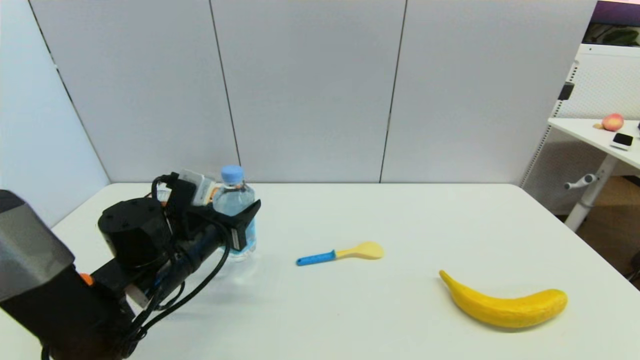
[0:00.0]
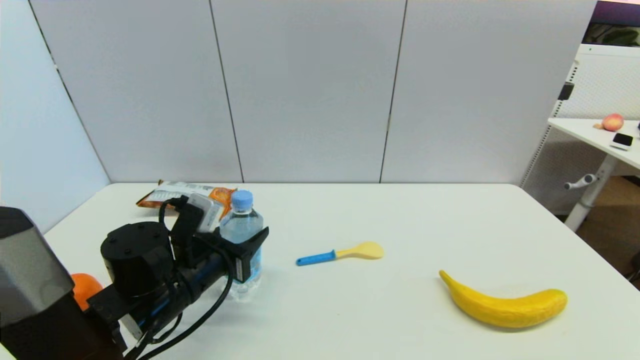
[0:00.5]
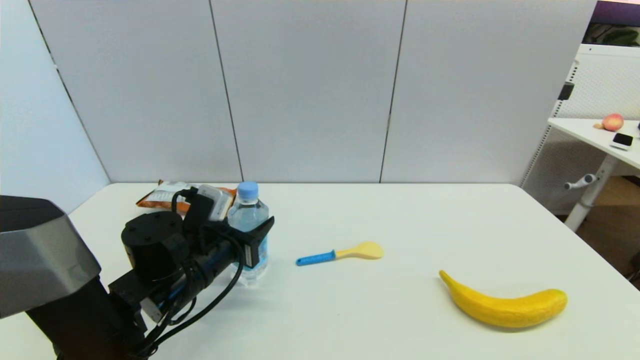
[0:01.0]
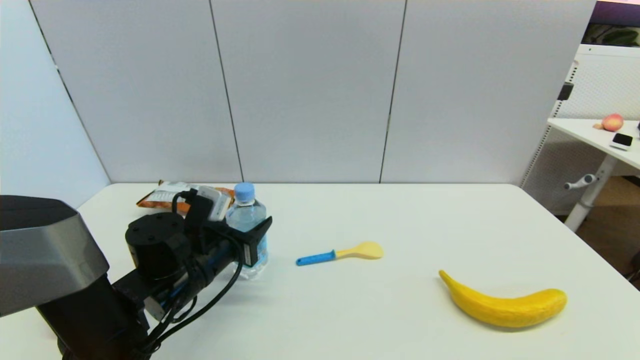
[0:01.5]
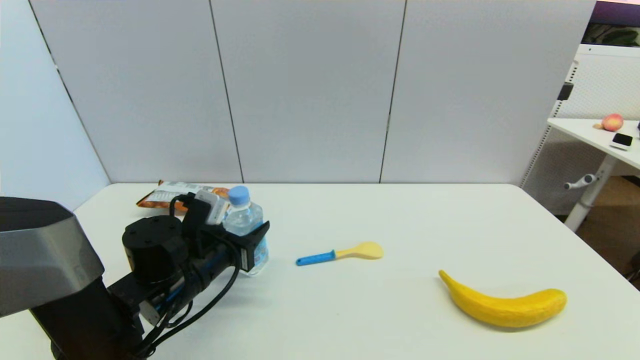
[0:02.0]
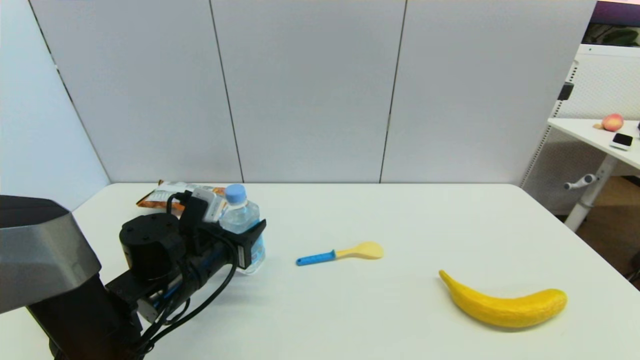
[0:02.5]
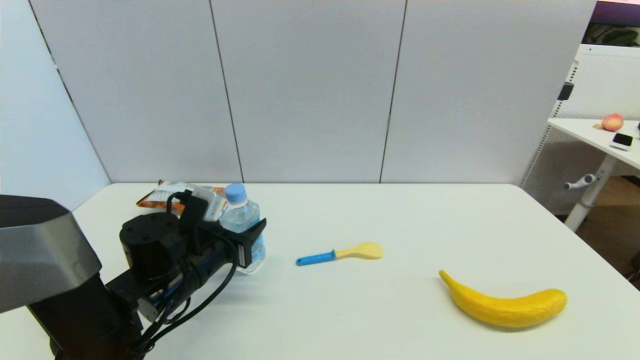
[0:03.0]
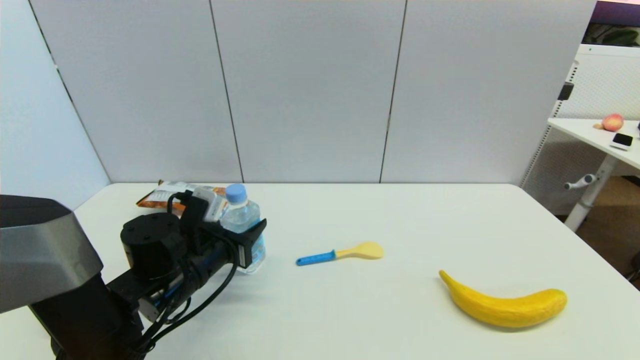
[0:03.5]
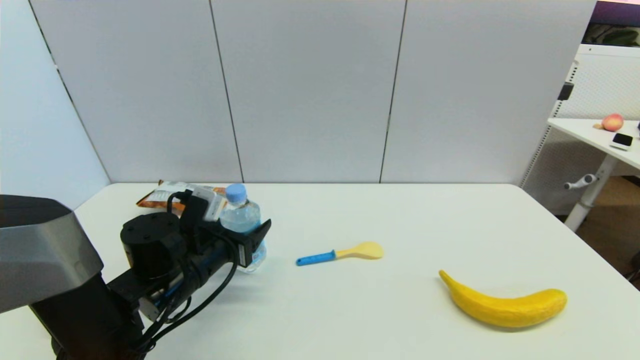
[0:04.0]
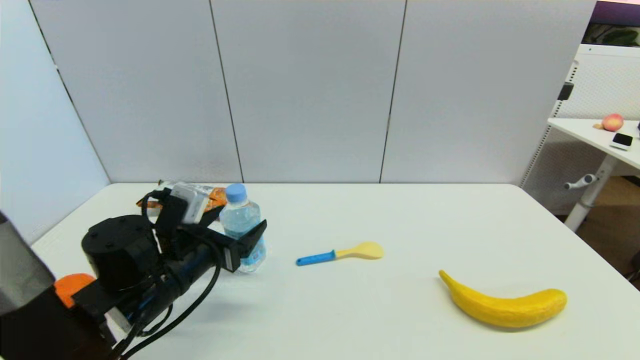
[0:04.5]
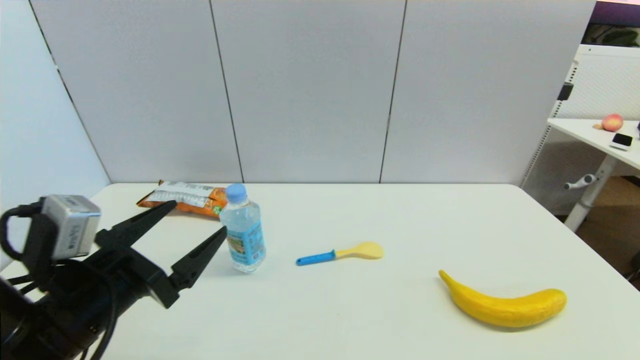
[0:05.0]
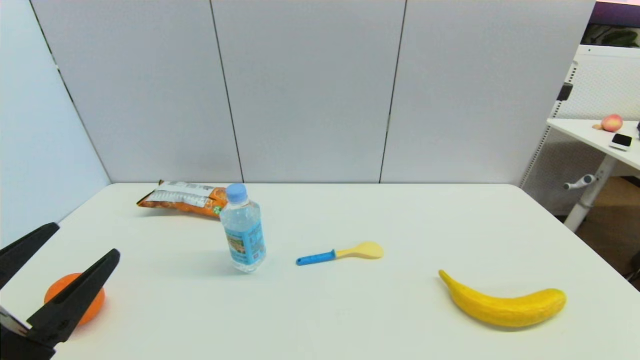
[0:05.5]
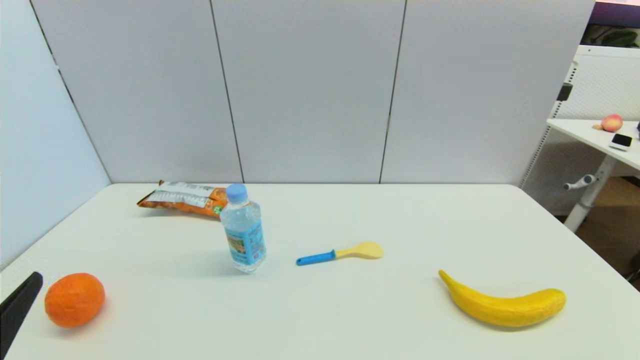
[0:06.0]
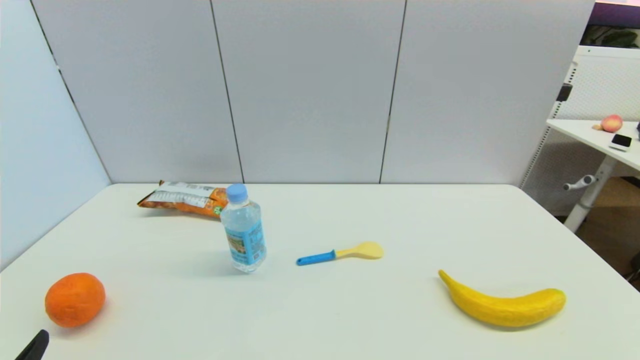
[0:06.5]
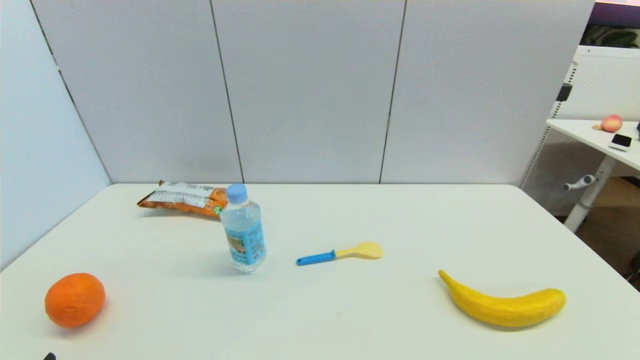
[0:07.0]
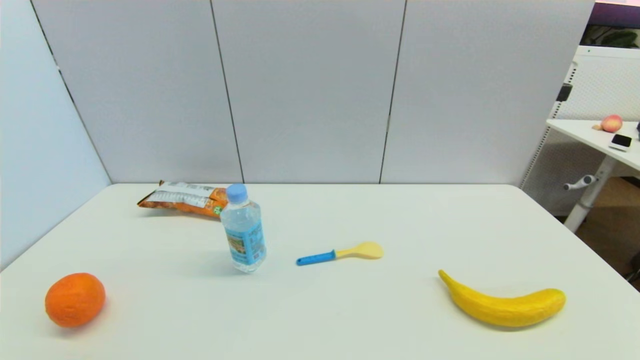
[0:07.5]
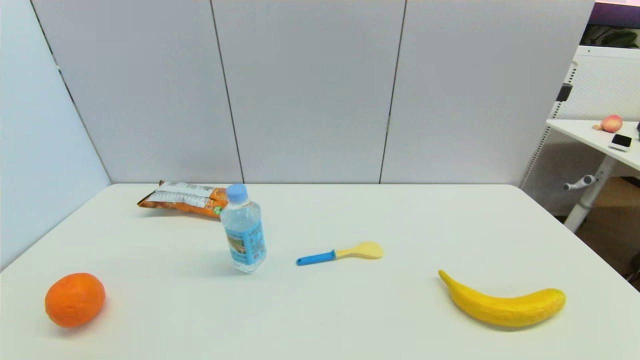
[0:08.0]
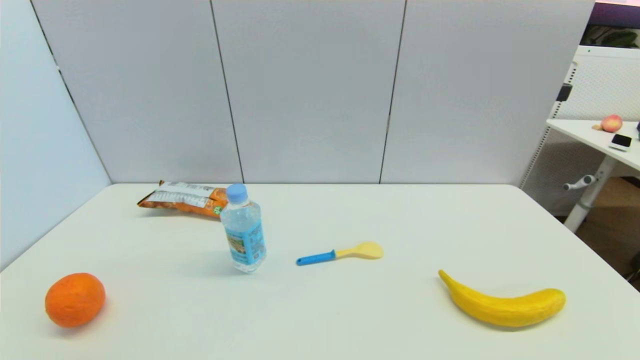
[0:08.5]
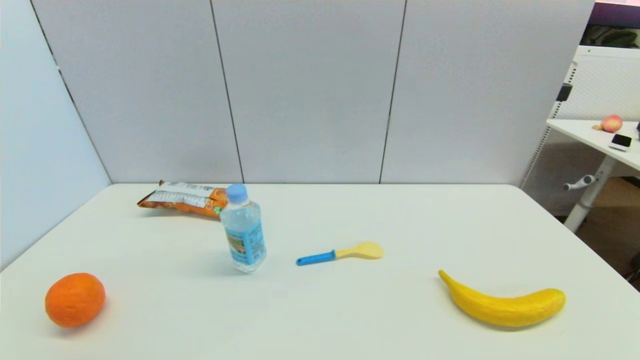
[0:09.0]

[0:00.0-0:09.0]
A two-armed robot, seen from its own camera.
Step, 0:00.0 to 0:03.0: Place the soda water on the table with left gripper.
0:00.0 to 0:02.0: The grippers move only a little.
0:02.0 to 0:04.5: The left gripper opens.
0:04.5 to 0:07.0: The left gripper goes roughly 25 cm backward and to the left.

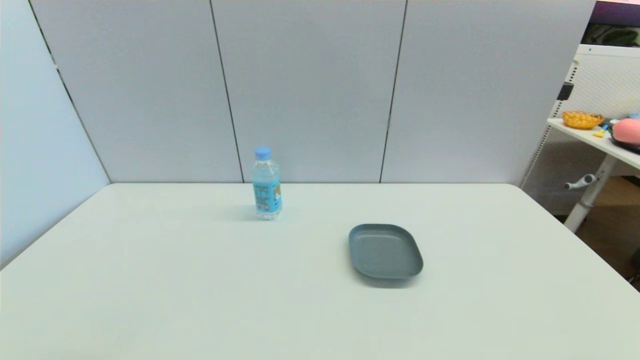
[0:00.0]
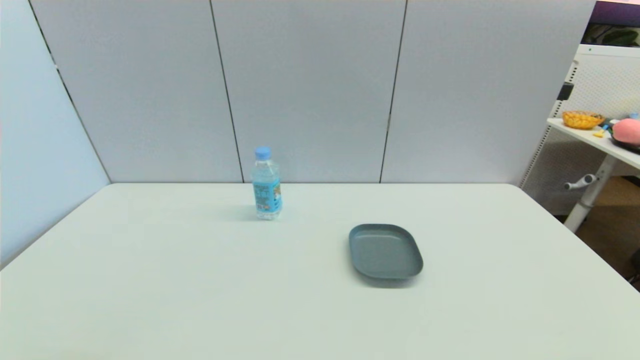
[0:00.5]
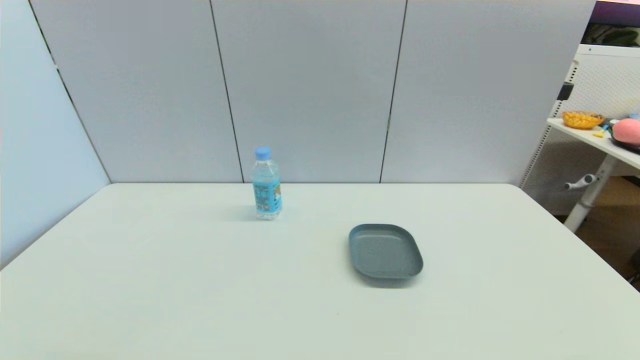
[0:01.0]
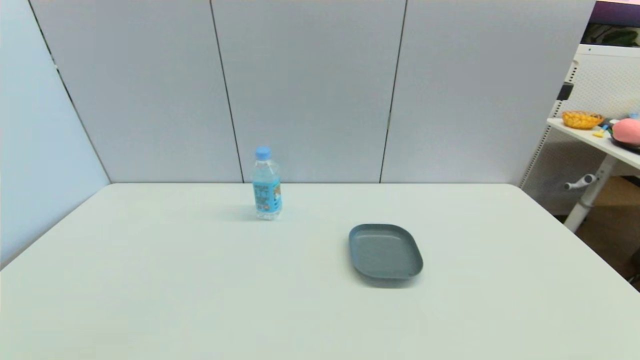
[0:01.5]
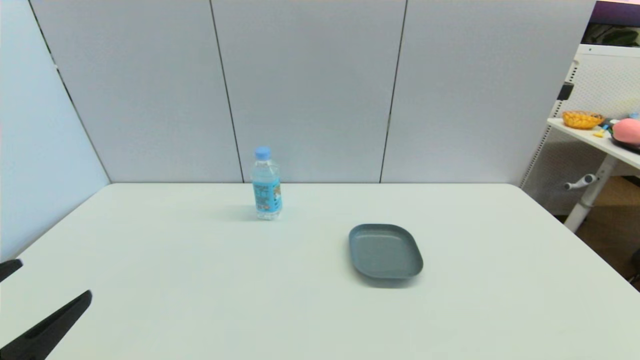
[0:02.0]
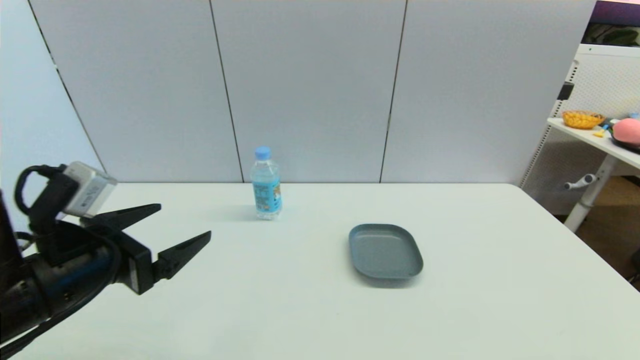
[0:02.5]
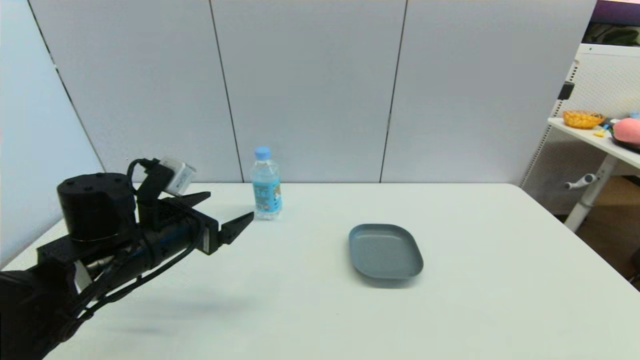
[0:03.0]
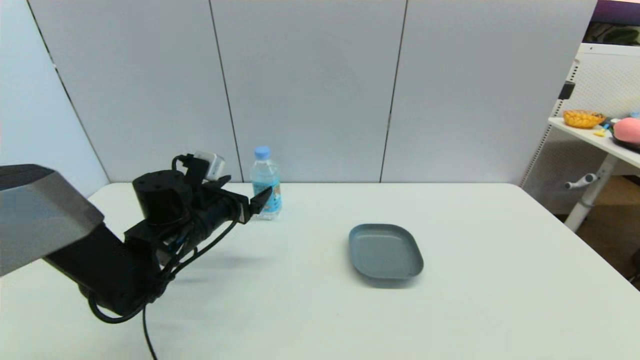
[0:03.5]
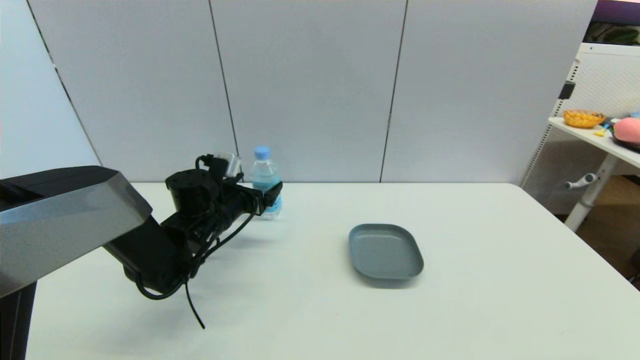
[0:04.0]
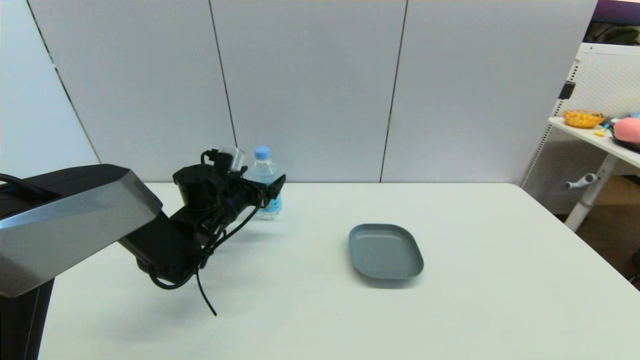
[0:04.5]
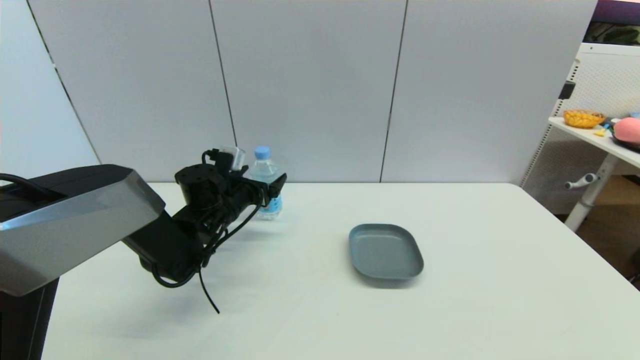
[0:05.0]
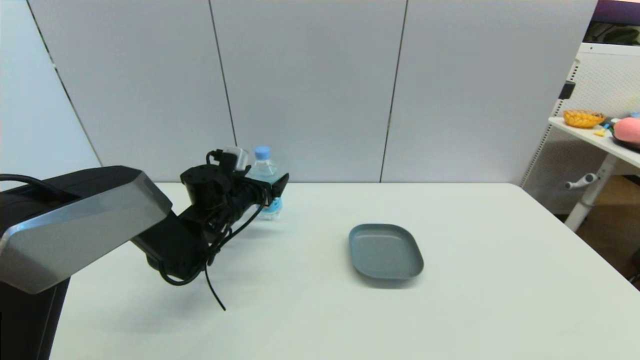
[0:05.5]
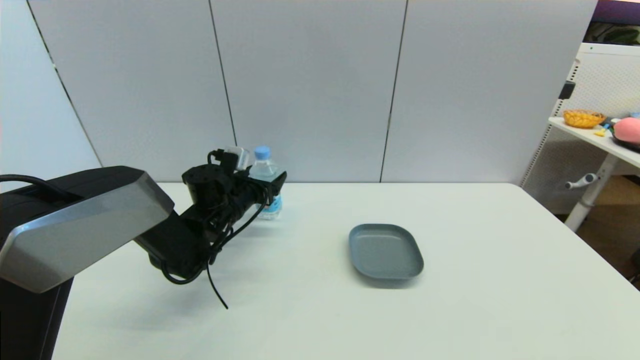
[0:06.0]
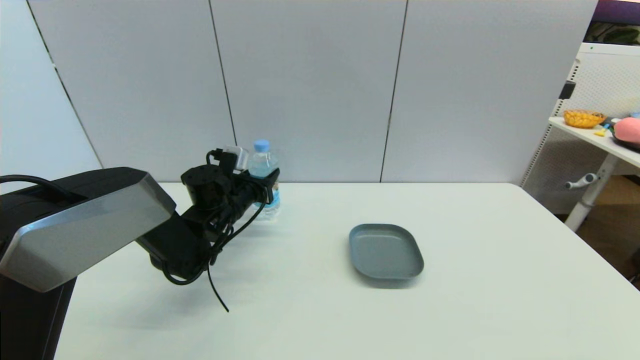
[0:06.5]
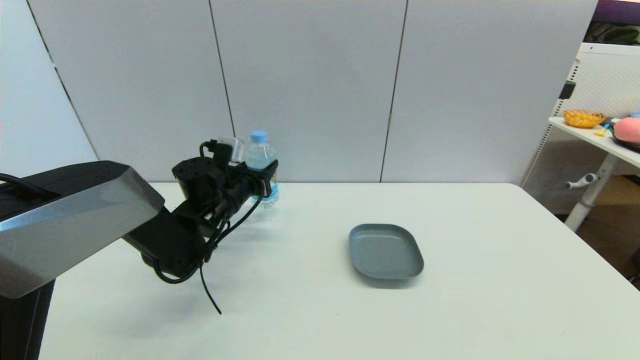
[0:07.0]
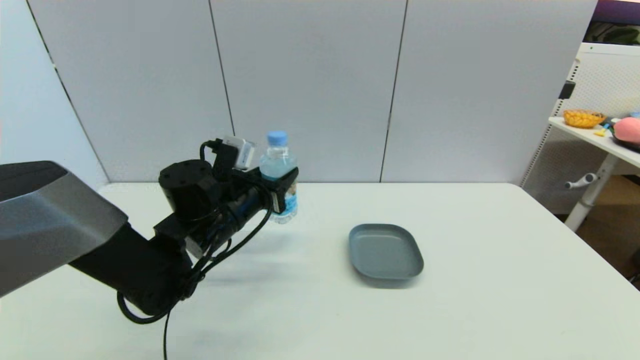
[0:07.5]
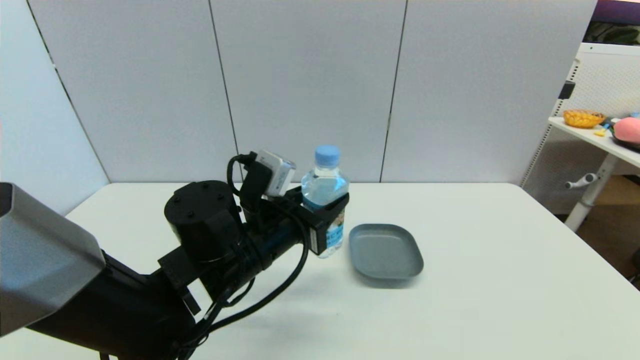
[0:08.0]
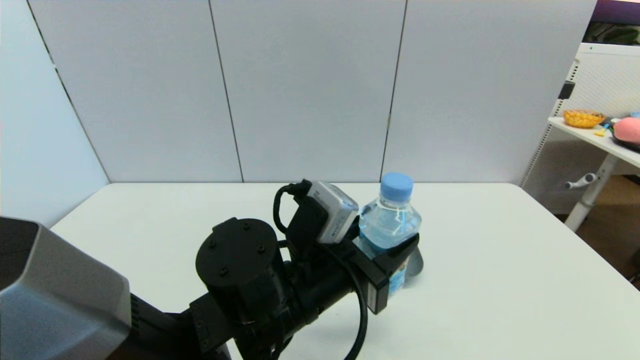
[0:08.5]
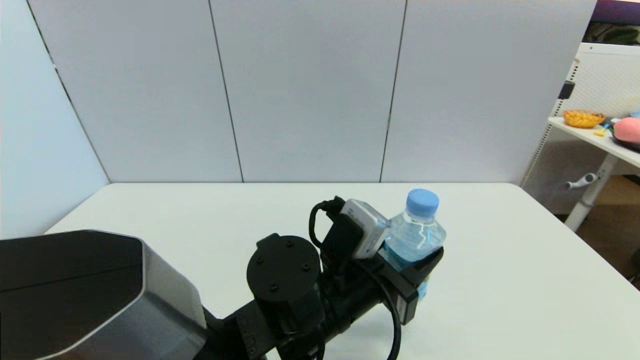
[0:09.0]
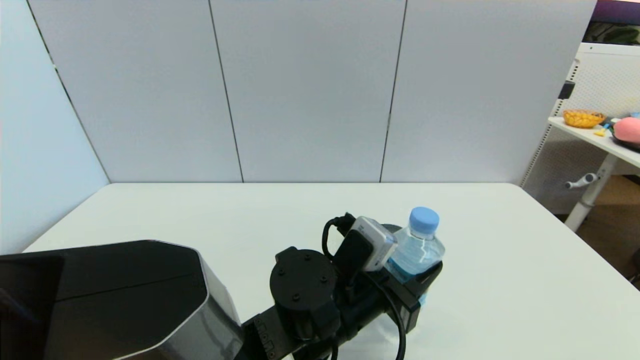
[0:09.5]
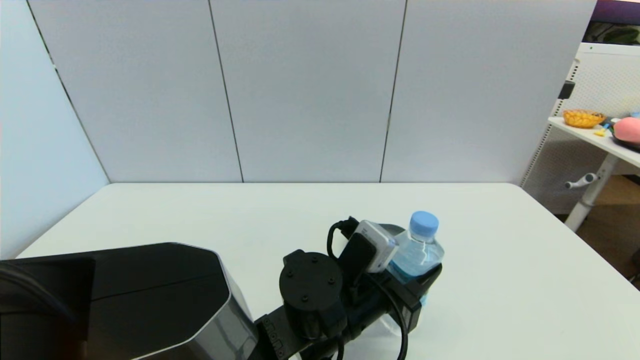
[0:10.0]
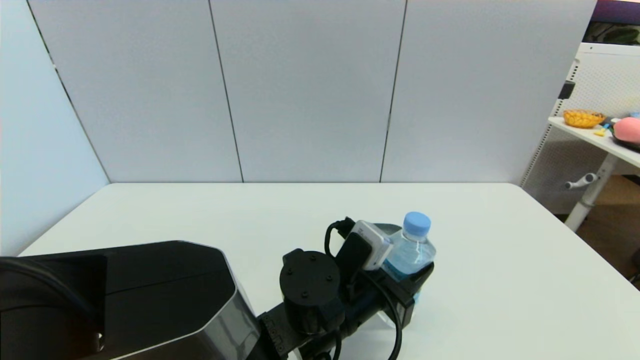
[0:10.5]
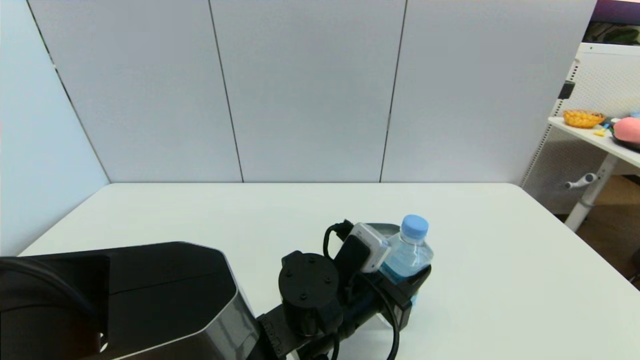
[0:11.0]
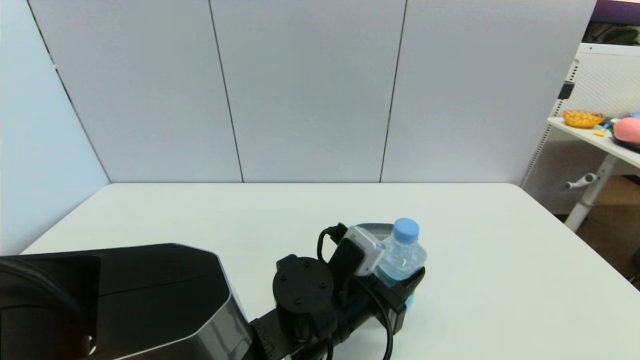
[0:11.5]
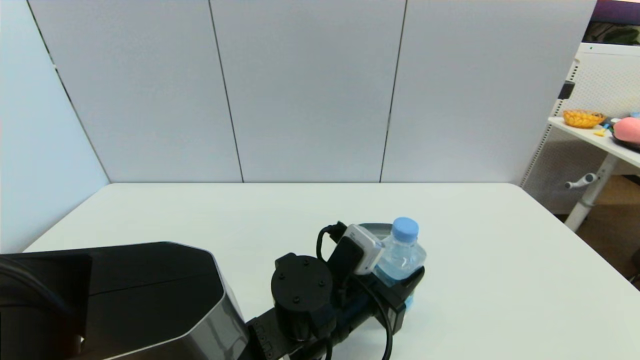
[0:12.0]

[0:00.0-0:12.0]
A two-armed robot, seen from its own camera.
Step, 0:01.0 to 0:06.0: Grasp the soda water with left gripper.
Step, 0:06.5 to 0:11.5: Place the soda water on the table with left gripper.
0:00.0 to 0:02.0: The left gripper goes some 15 cm upward and forward.
0:02.0 to 0:04.0: The left gripper is displaced forward by about 30 cm.
0:04.0 to 0:06.0: The left gripper closes.
0:06.0 to 0:08.0: The left gripper travels backward, to the right and upward by roughly 20 cm, and closes.
0:08.0 to 0:10.0: The left gripper moves to the right and downward, roughly 10 cm.
0:10.0 to 0:12.0: The grippers move only a little.
